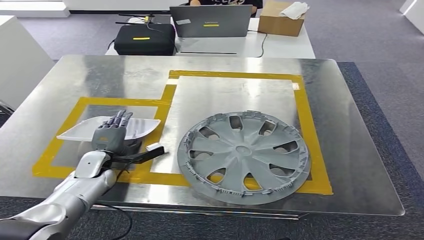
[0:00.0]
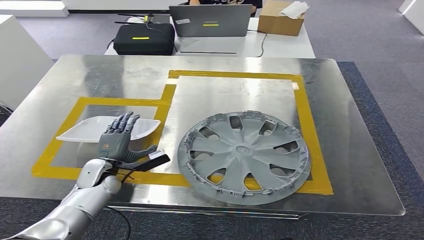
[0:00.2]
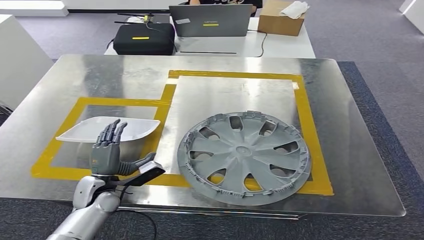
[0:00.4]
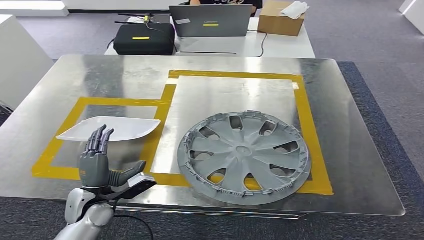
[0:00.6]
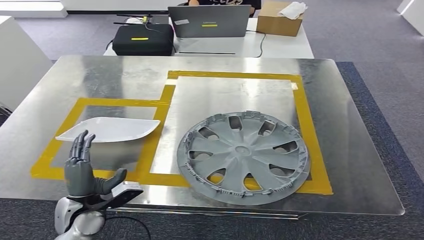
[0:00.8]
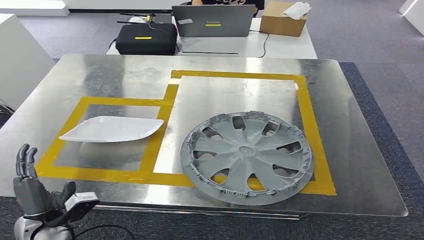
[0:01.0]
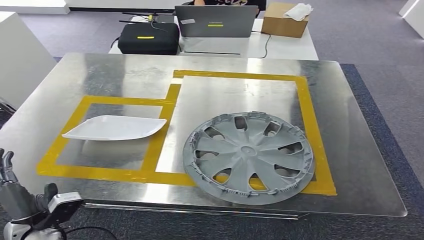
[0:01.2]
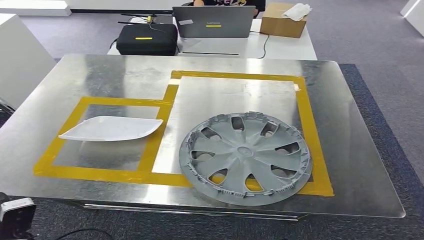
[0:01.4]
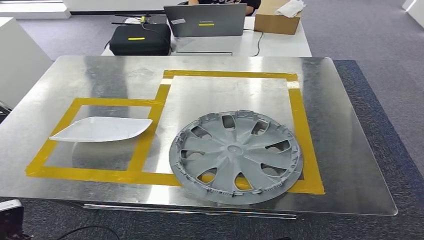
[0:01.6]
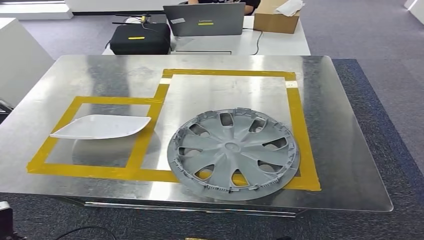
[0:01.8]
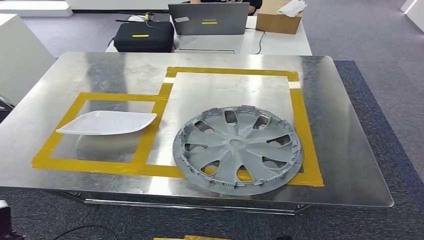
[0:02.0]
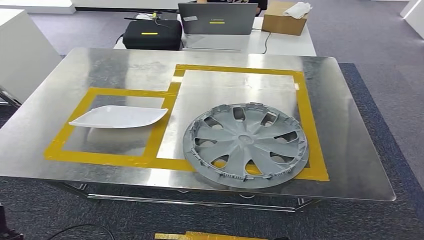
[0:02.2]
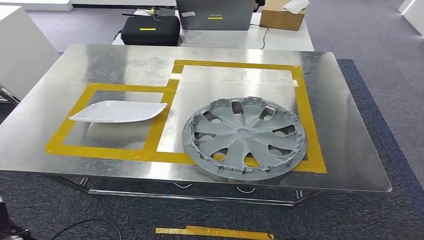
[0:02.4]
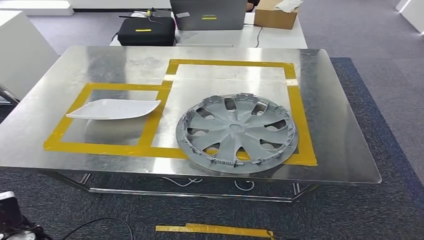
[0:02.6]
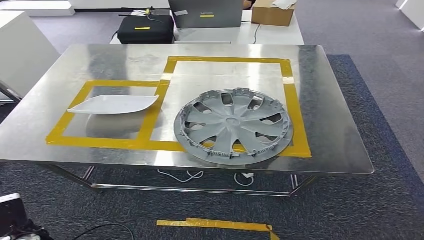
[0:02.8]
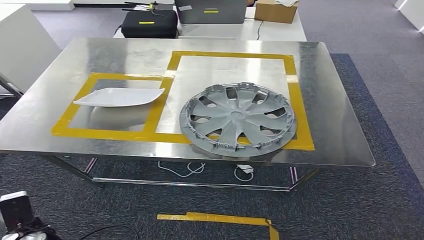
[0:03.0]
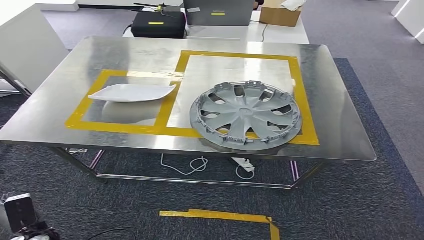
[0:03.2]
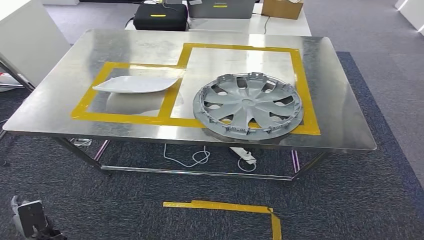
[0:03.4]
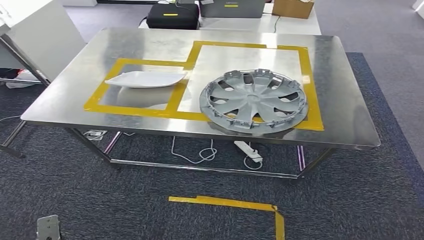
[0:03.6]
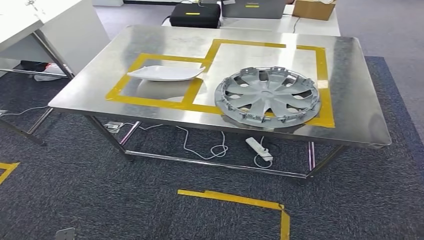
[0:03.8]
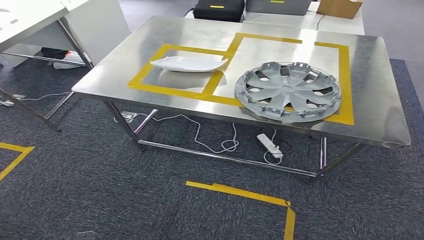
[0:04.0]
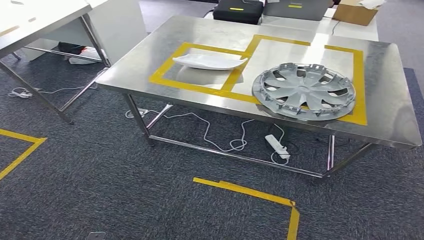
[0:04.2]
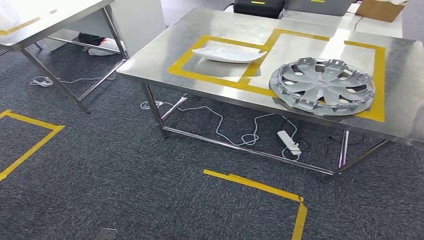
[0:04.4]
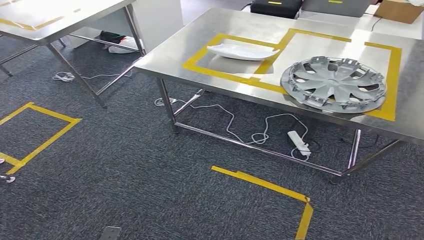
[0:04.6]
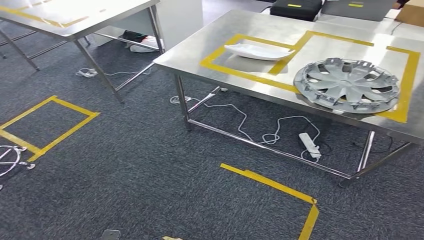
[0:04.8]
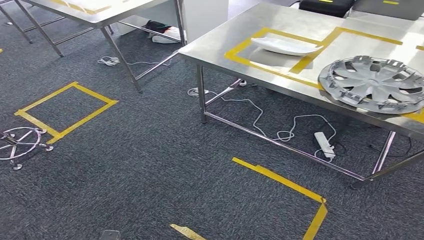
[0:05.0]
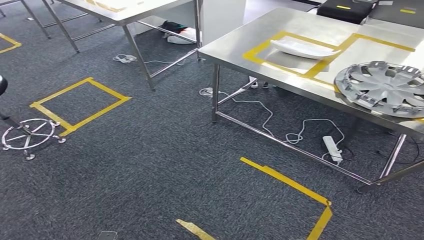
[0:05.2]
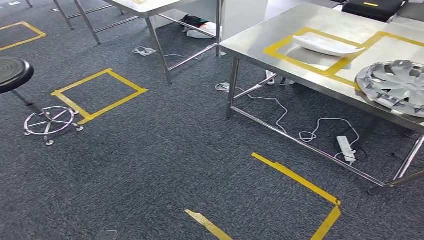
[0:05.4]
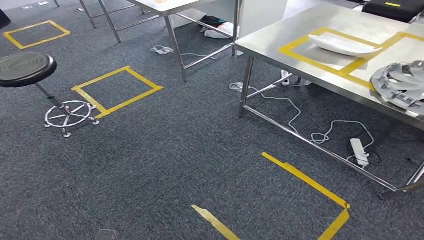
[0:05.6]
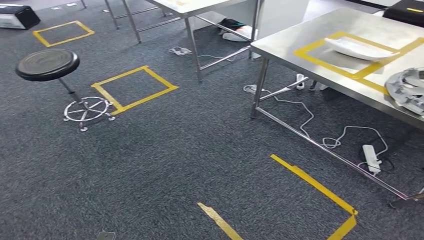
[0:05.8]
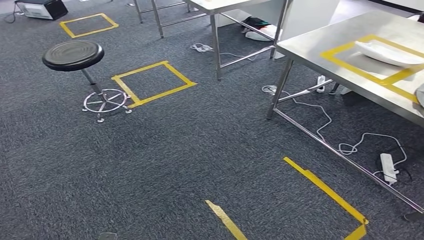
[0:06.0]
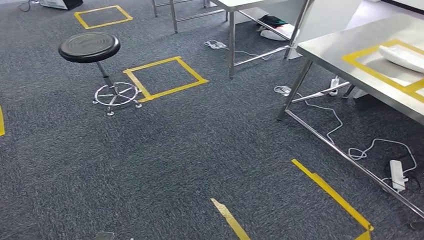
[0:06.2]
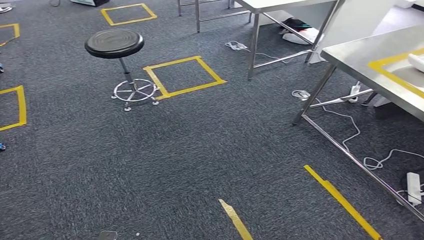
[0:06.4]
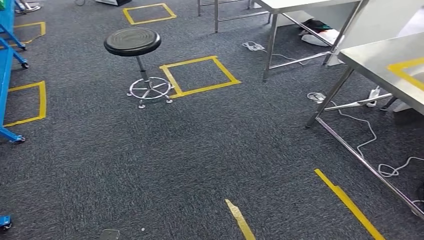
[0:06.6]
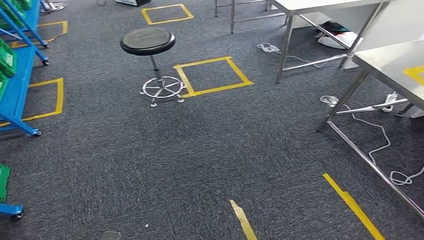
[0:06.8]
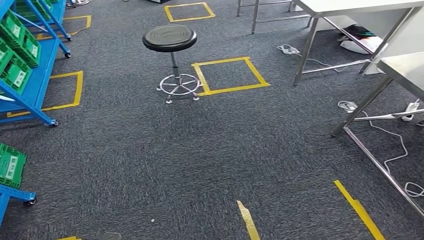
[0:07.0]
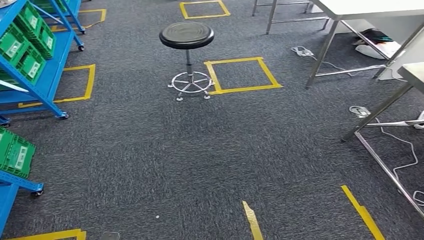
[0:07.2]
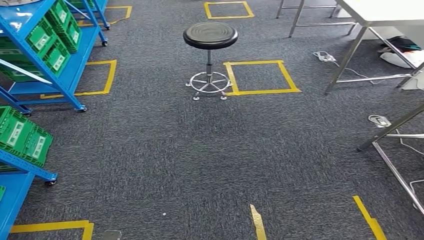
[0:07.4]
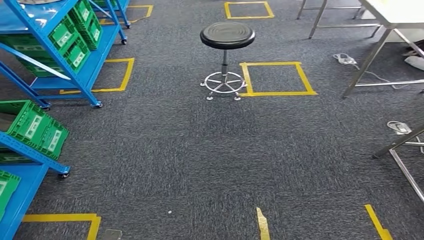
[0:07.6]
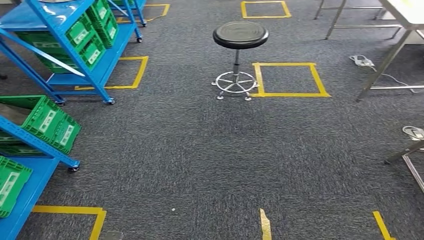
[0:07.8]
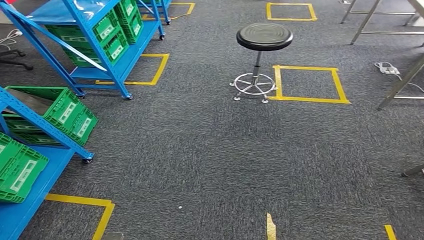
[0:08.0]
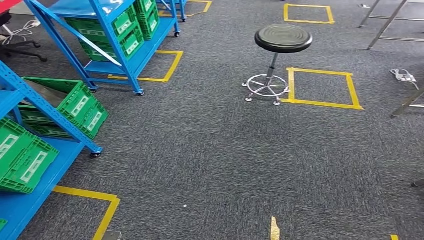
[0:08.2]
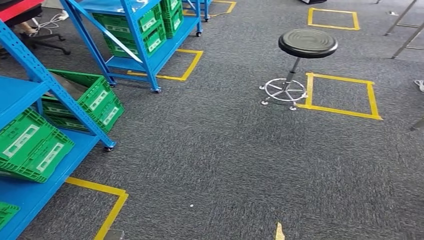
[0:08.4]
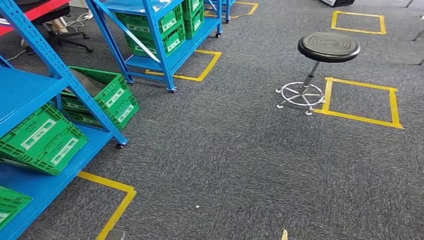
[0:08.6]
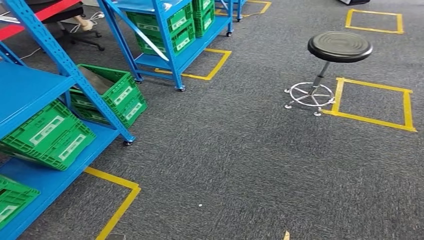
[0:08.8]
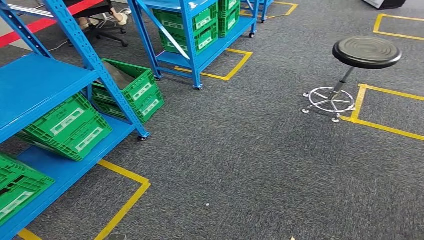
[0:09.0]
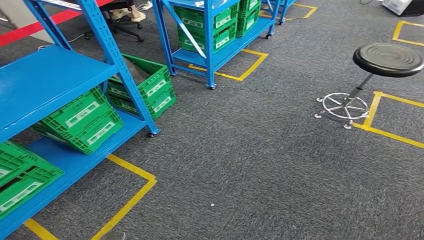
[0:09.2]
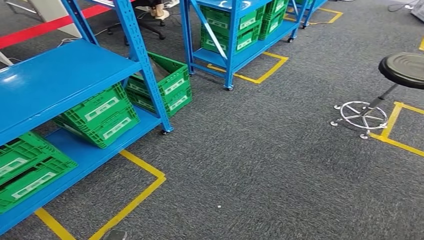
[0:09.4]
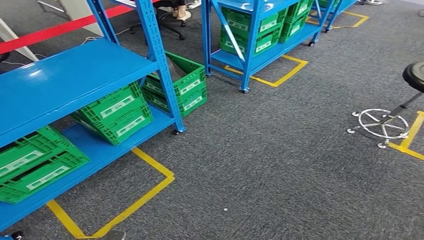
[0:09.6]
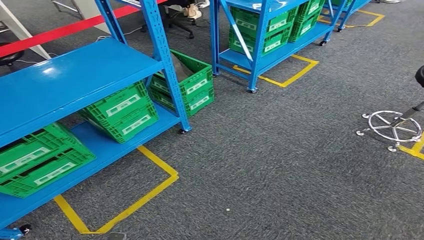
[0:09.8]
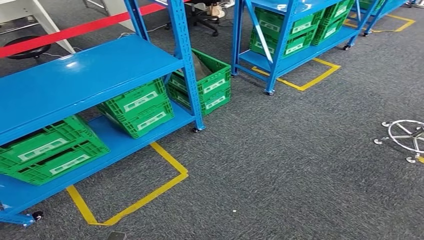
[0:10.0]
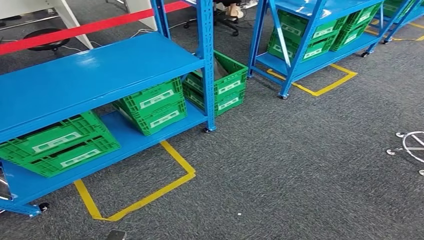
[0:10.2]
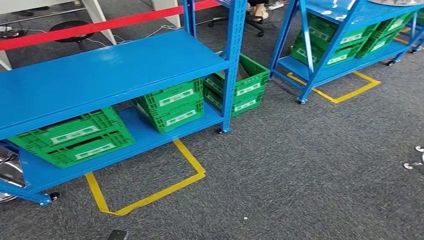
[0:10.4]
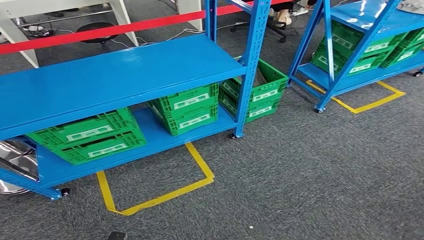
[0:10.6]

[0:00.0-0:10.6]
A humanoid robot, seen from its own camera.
0:00.0 to 0:01.6: The left hand shifts about 25 cm backward and to the left.

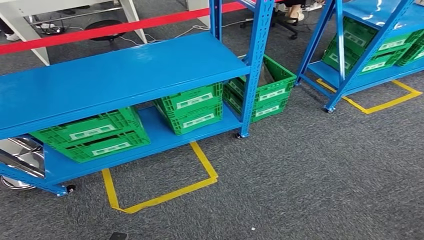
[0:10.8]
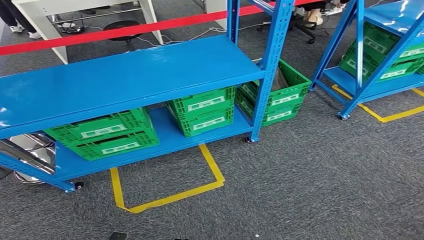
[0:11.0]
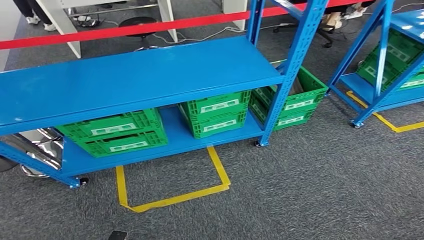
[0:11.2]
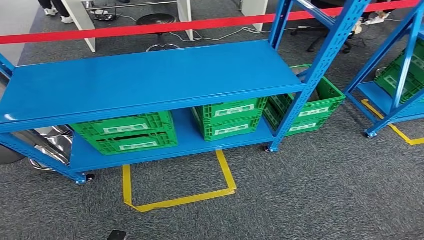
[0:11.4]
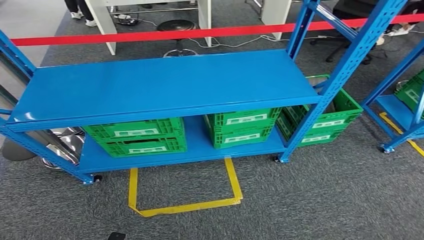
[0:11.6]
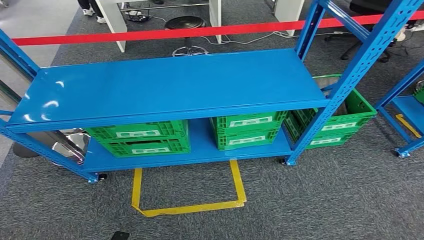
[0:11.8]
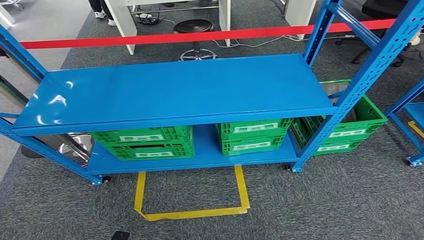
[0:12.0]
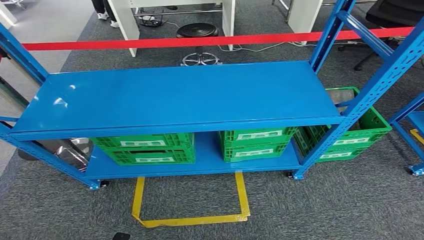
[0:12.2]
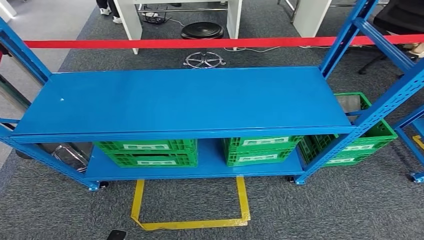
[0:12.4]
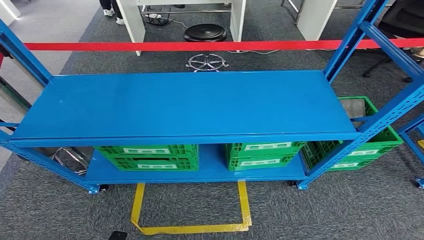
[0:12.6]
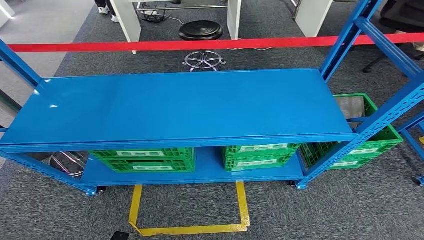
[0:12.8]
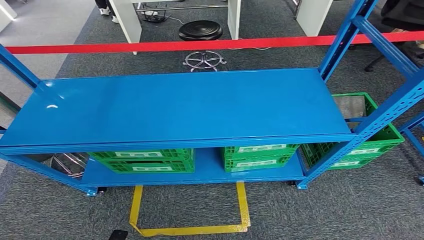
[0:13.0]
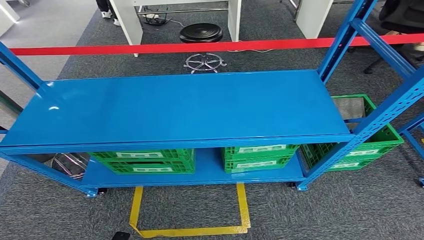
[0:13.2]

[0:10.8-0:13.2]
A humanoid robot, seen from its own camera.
Step, 0:10.8 to 0:13.2: Move to the initial position of the workbench.
